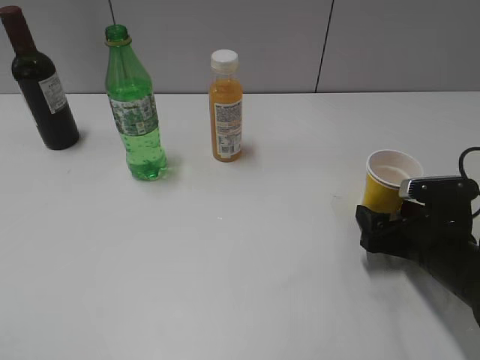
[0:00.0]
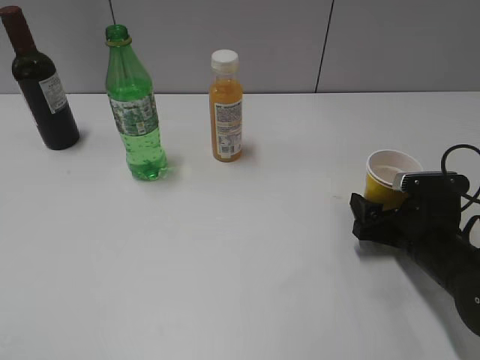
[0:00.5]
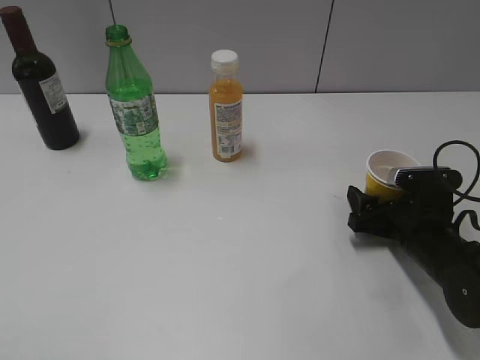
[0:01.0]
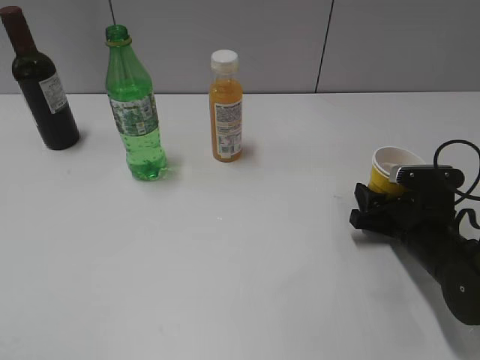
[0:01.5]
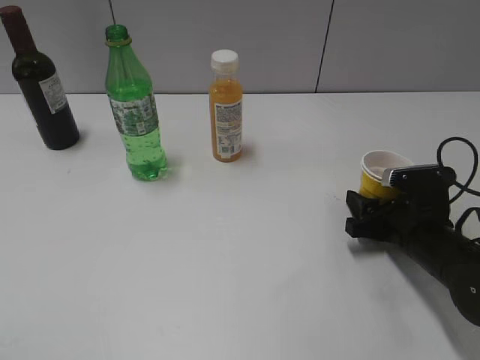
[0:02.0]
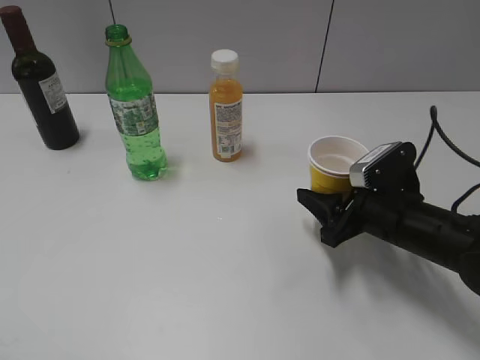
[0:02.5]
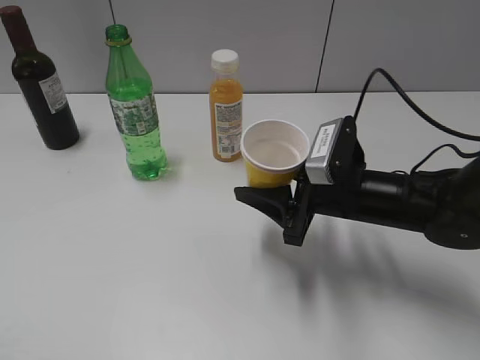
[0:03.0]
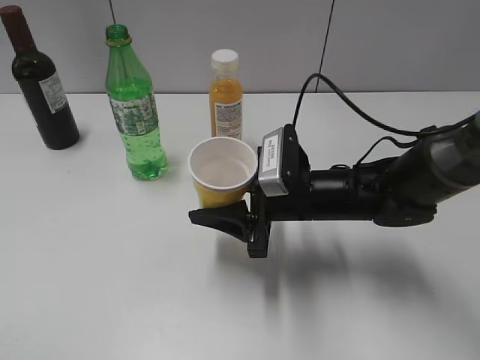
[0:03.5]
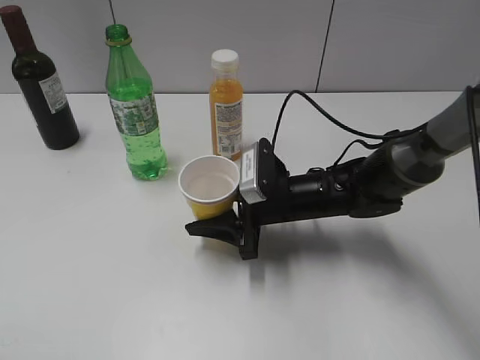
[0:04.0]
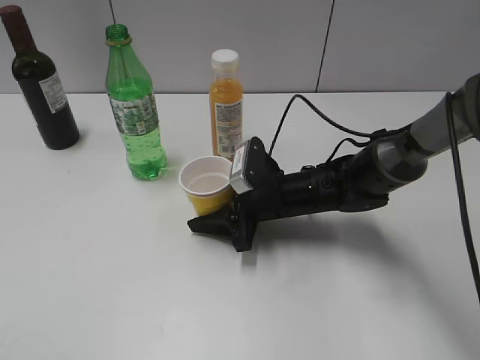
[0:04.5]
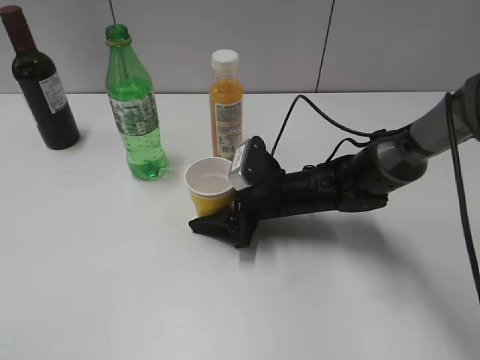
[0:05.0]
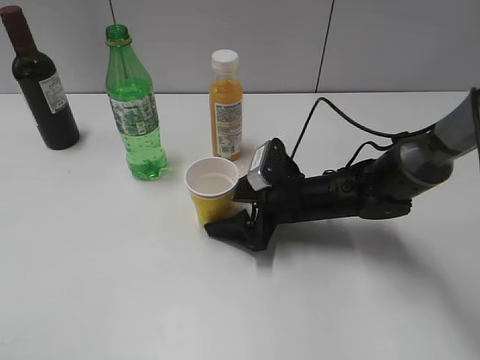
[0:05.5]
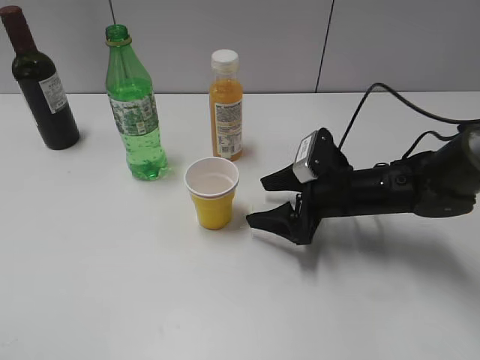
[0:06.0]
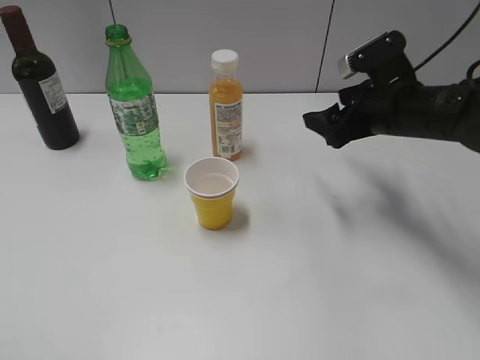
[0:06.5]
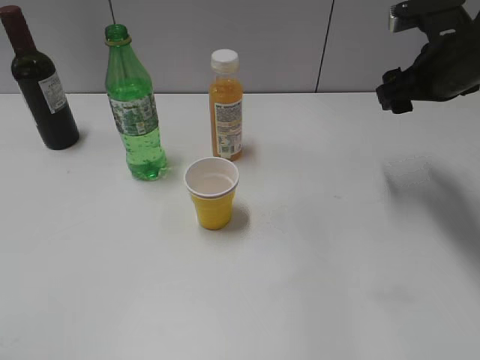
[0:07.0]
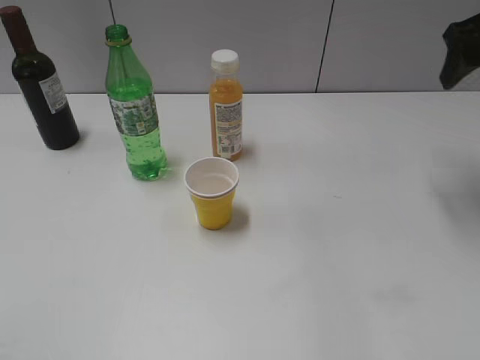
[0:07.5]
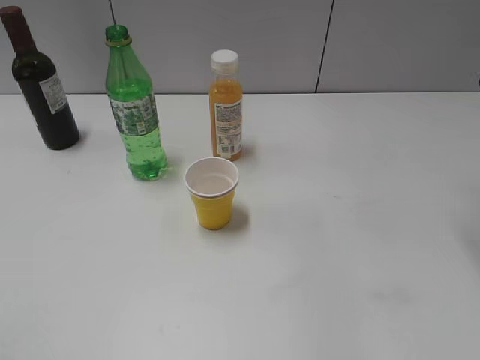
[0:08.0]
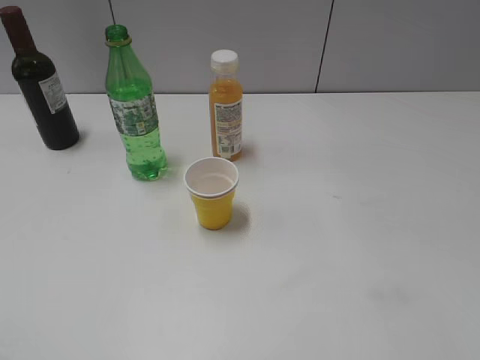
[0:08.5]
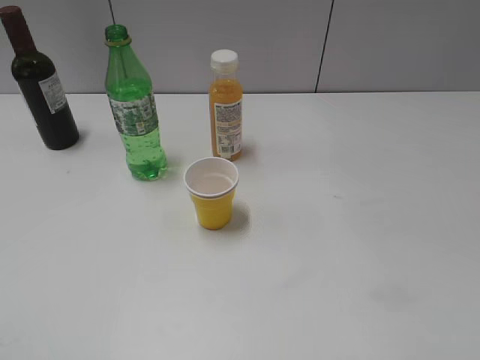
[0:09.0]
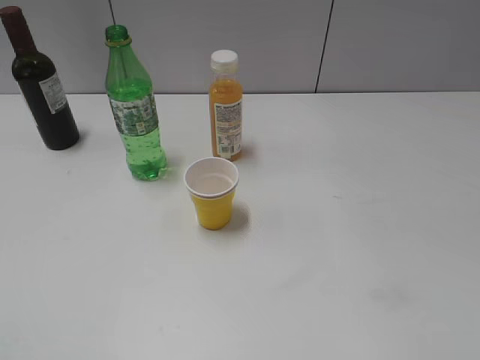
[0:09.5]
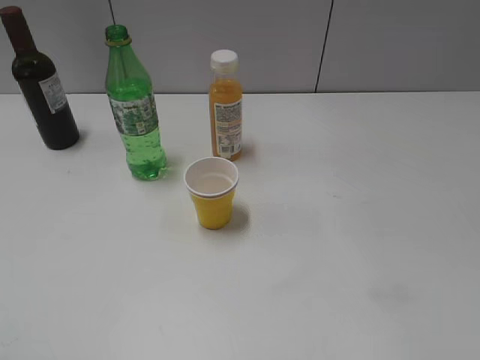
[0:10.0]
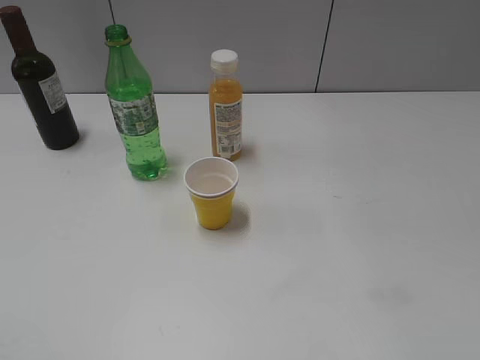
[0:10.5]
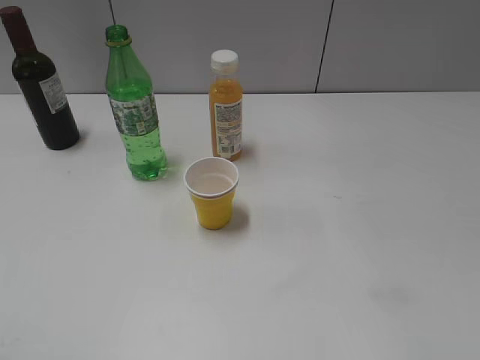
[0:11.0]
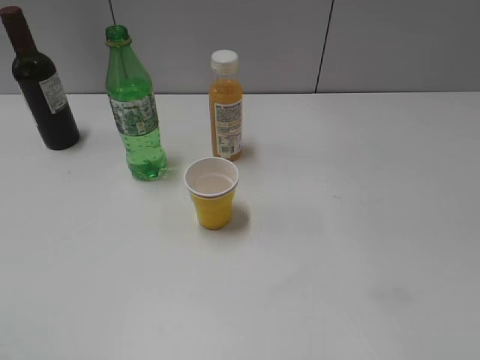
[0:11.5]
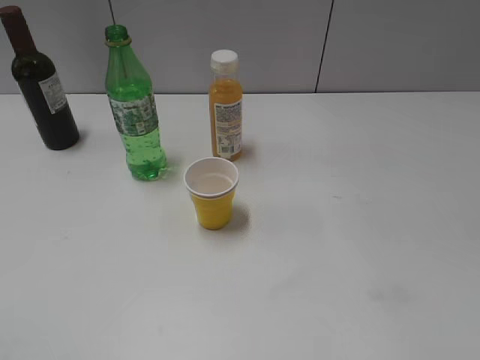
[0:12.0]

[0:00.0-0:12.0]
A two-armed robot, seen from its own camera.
Step, 0:02.0 to 0:05.5: Place the yellow paper cup on the table with right gripper.
0:00.0 to 0:02.0: The right gripper closes its fingers.
0:02.0 to 0:04.0: The right gripper shifts about 15 cm to the left.
0:04.0 to 0:06.0: The right gripper goes approximately 10 cm to the right, and opens its fingers.
0:06.0 to 0:08.0: The right gripper travels upward and to the right by approximately 30 cm.
0:10.0 to 0:12.0: Both grippers stay about where they are.

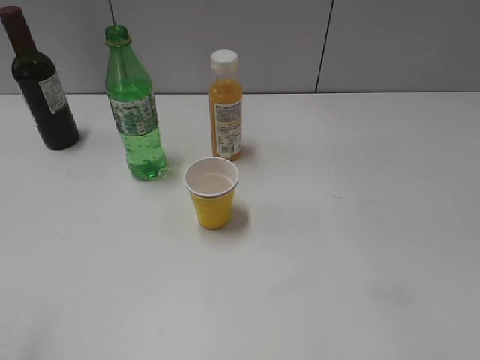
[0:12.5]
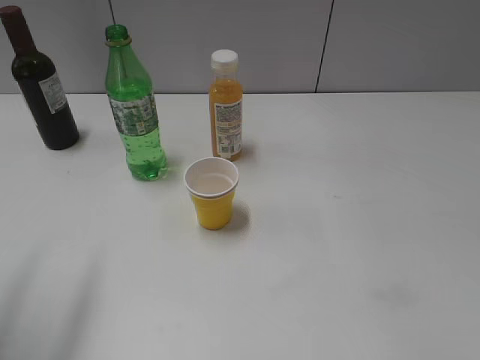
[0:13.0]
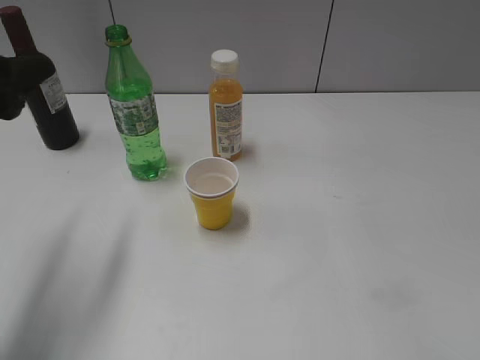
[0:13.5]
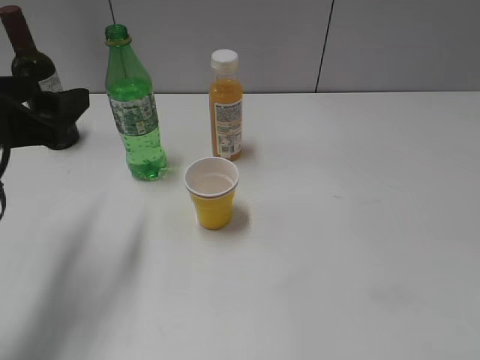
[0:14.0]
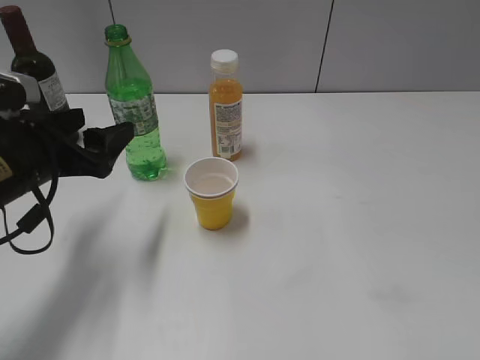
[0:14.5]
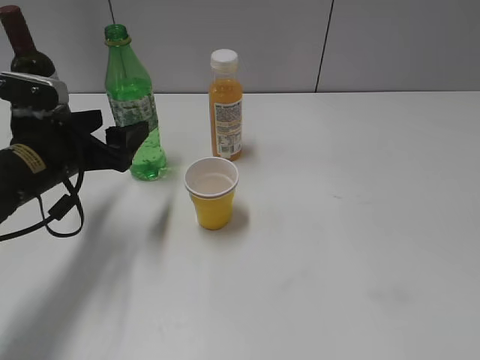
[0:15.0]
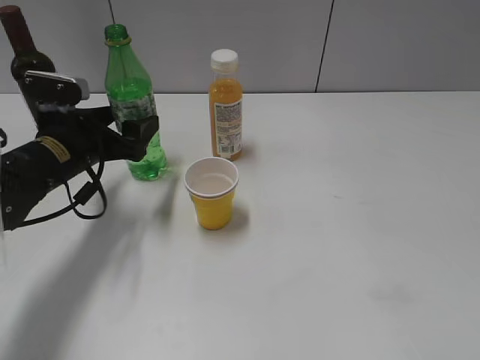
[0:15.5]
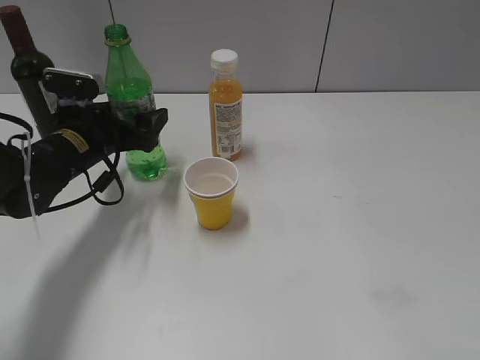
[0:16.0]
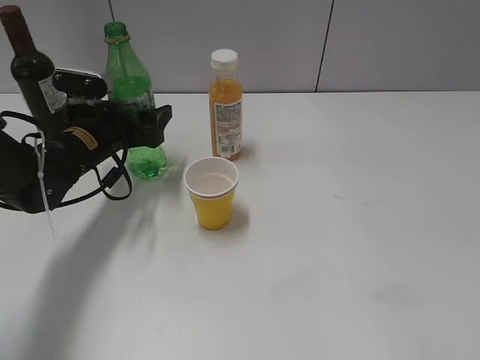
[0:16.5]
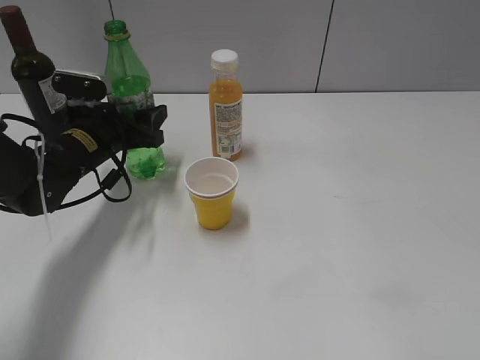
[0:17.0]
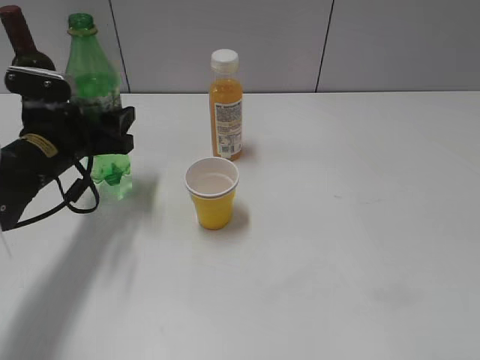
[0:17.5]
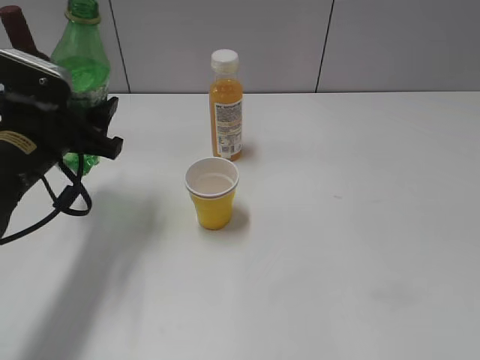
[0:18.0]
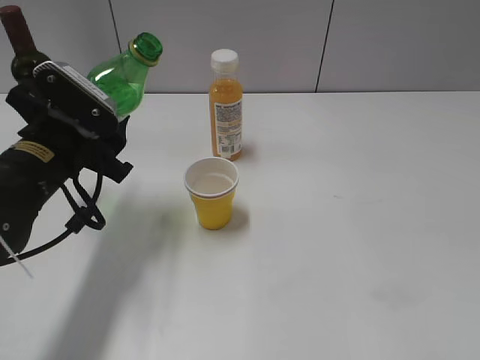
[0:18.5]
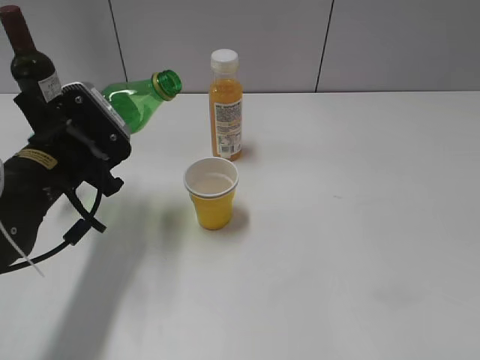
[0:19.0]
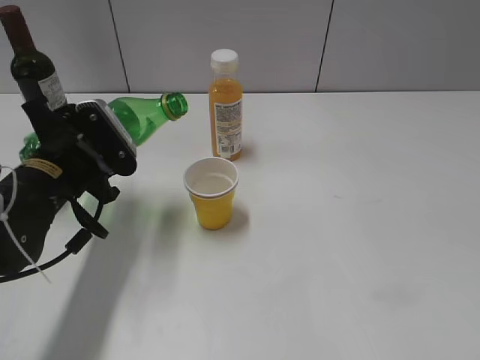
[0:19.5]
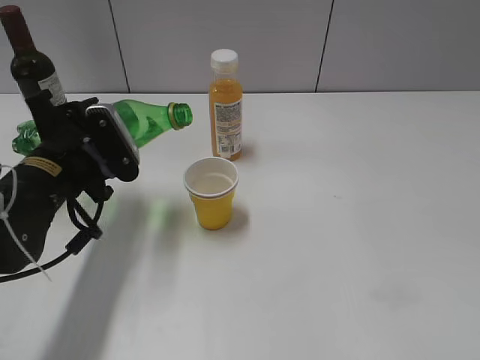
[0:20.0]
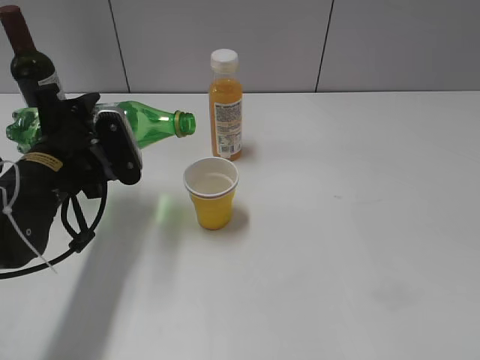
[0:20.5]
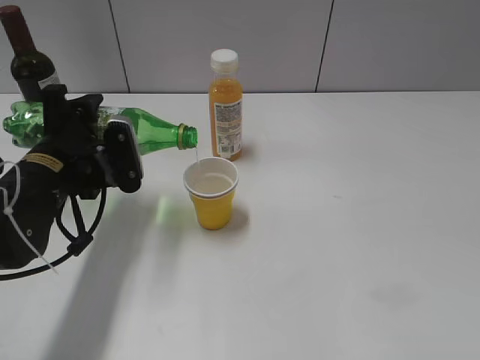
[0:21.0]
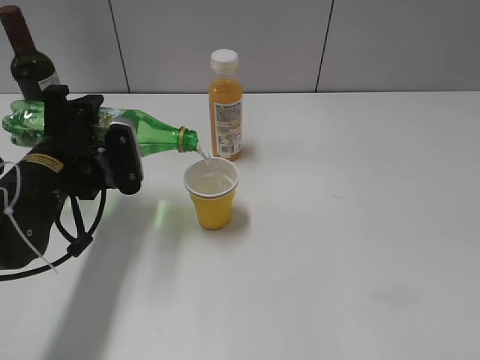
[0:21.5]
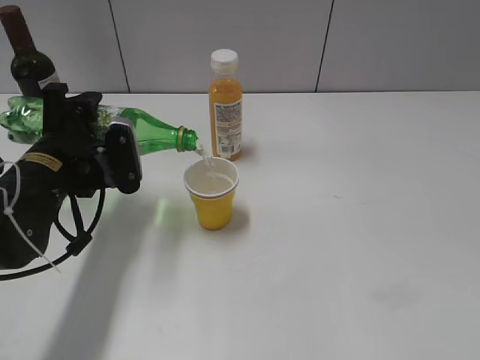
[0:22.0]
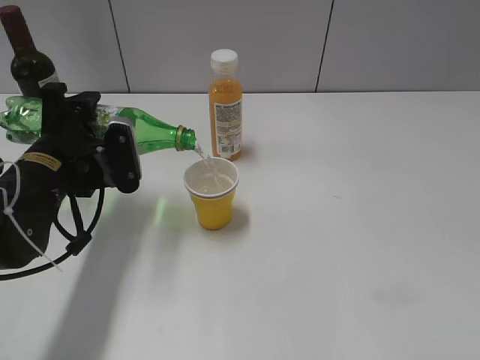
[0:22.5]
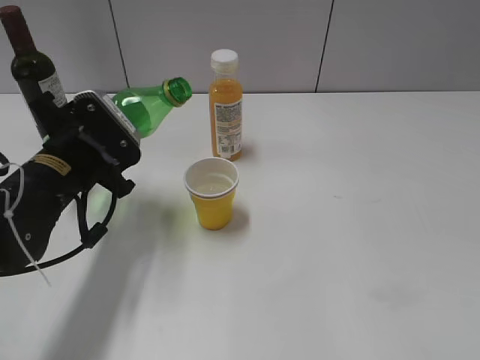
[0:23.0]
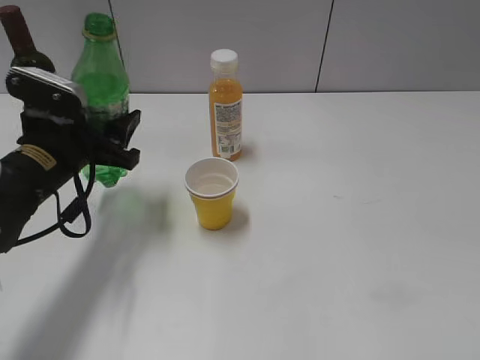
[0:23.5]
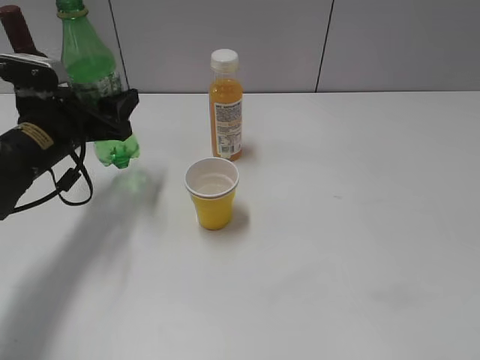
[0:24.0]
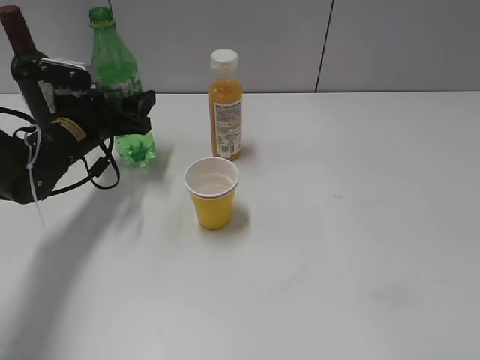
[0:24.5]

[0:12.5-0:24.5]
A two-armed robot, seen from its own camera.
Step, 0:12.5 to 0:16.5: Grasp the bottle with sprite with left gripper.
Step, 0:17.0 to 0:22.5: Pour the sprite from bottle to cup with left gripper.
0:12.5 to 0:14.5: The left gripper is displaced forward and downward by about 25 cm.
0:14.5 to 0:16.5: The left gripper heads forward and downward, covering some 15 cm.
0:16.5 to 0:18.5: The left gripper moves backward and upward, some 10 cm, and closes up.
0:20.5 to 0:22.5: There are only small adjustments of the grippers.
0:22.5 to 0:24.5: The left gripper shifts roughly 10 cm forward.

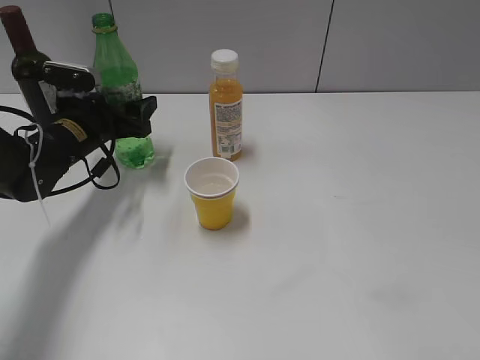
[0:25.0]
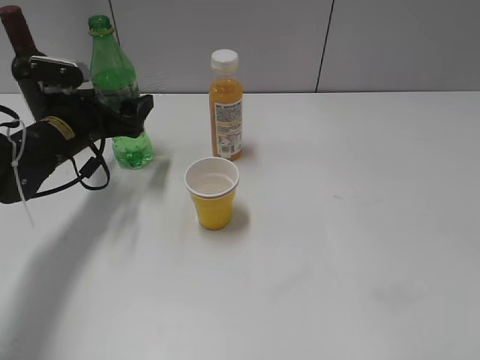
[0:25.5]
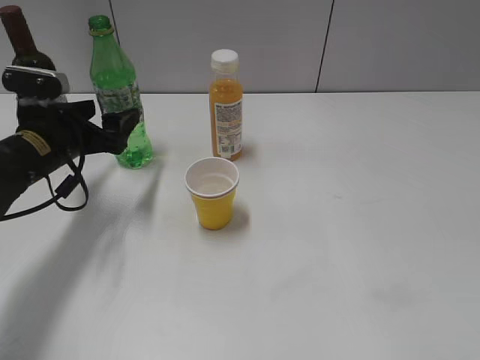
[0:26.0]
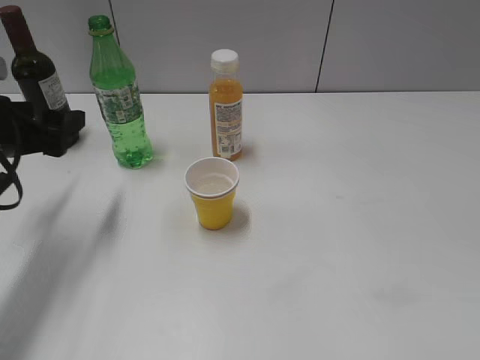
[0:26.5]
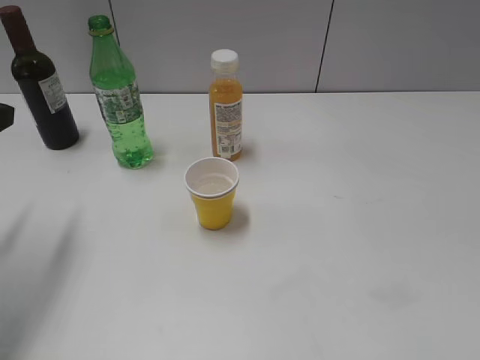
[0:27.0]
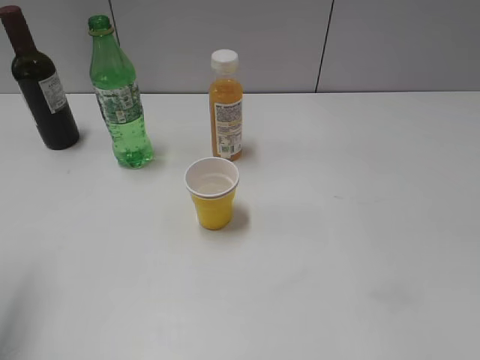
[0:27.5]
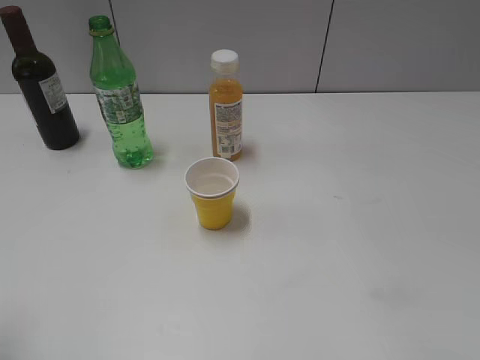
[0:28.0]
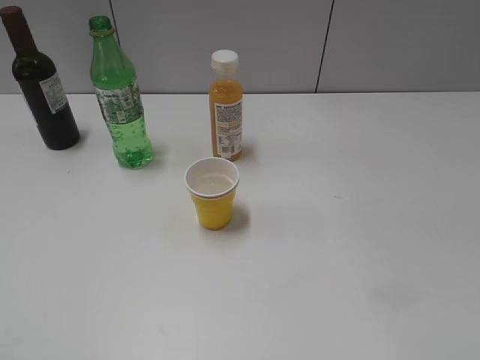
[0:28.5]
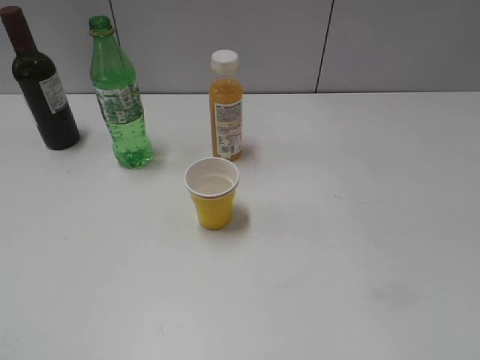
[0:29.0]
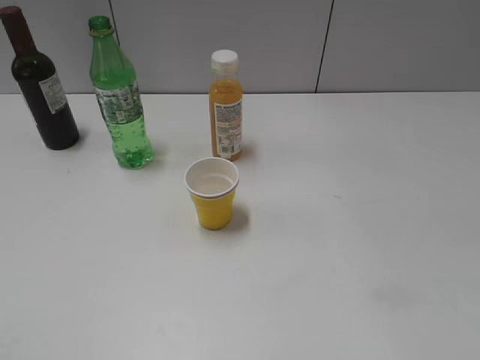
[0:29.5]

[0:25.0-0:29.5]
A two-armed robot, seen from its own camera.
0:25.0 to 0:27.0: The left gripper is displaced backward, upward and to the left by roughly 25 cm, and opens, then closes again.
0:27.0 to 0:29.5: The left gripper moves backward, about 25 cm.
